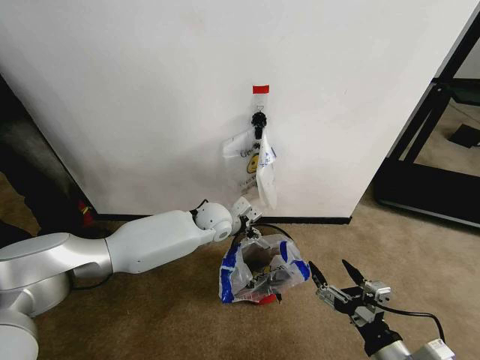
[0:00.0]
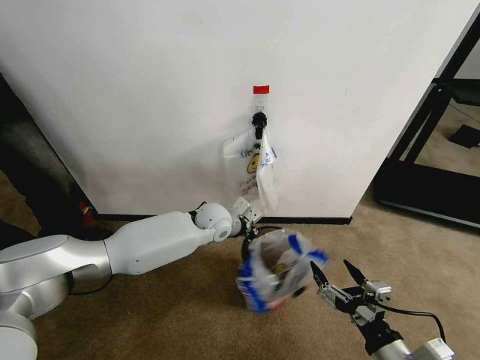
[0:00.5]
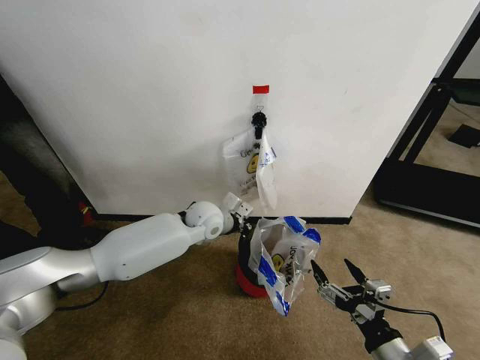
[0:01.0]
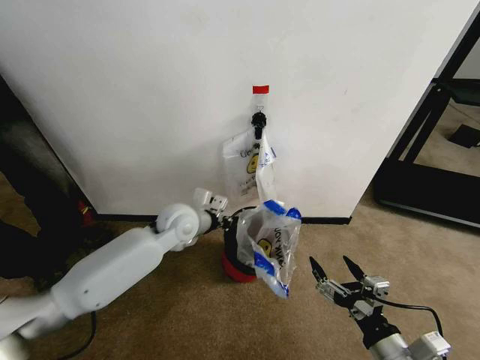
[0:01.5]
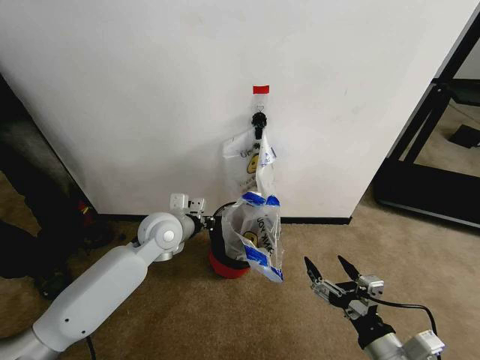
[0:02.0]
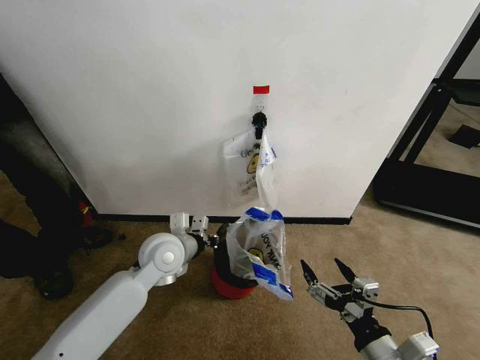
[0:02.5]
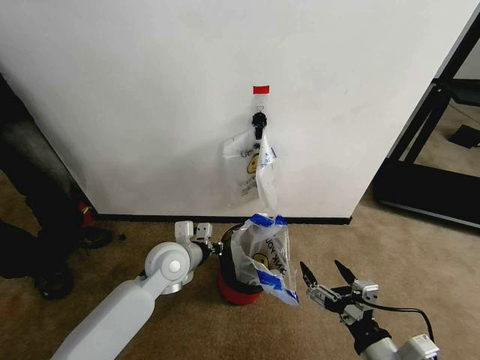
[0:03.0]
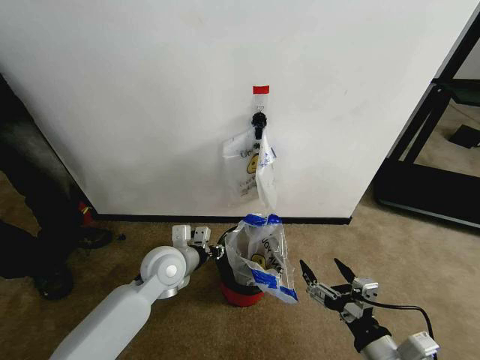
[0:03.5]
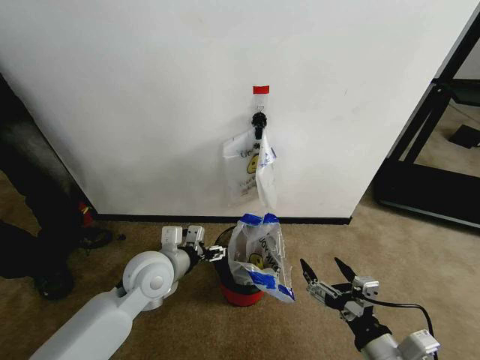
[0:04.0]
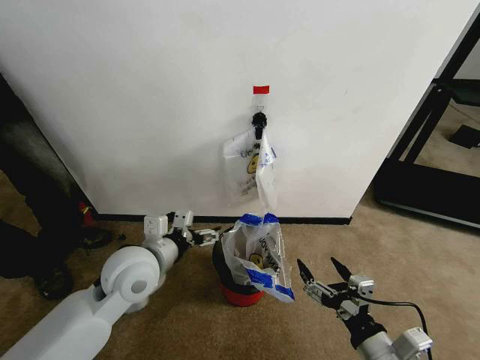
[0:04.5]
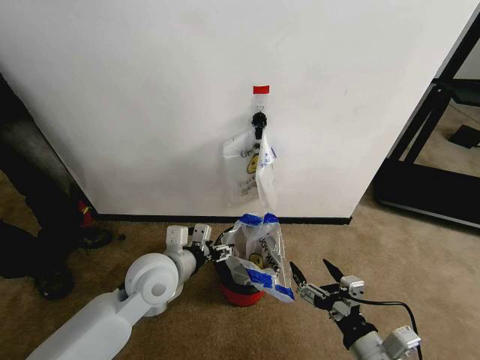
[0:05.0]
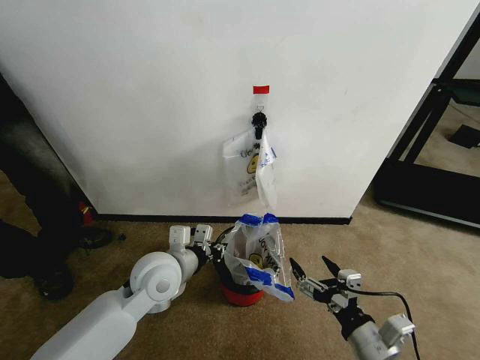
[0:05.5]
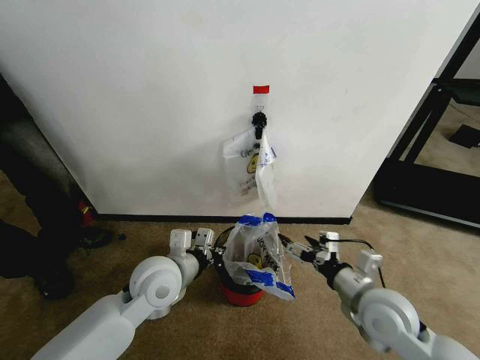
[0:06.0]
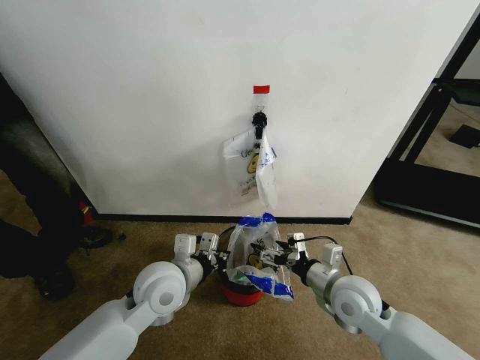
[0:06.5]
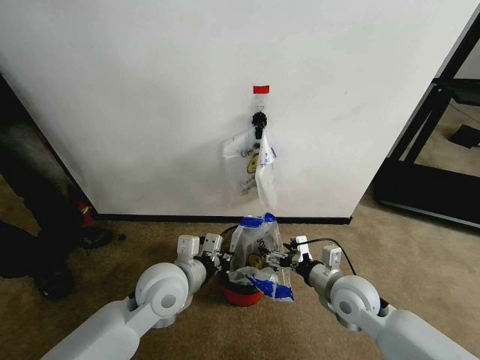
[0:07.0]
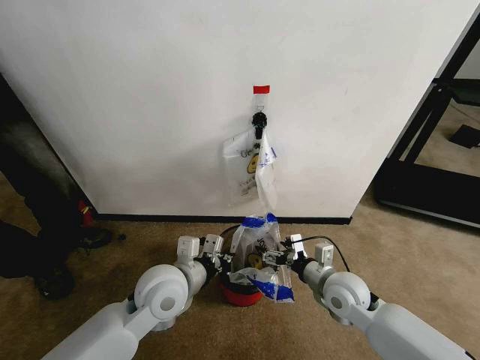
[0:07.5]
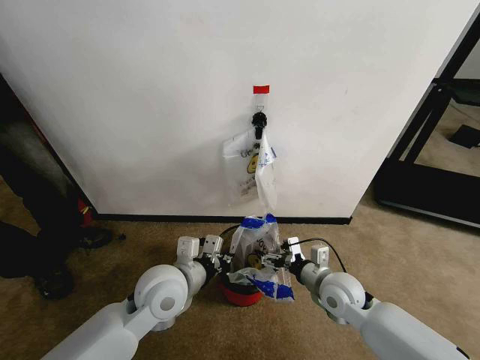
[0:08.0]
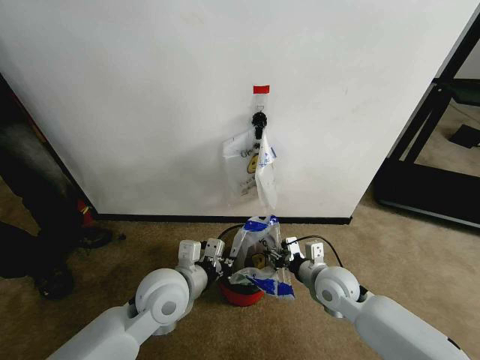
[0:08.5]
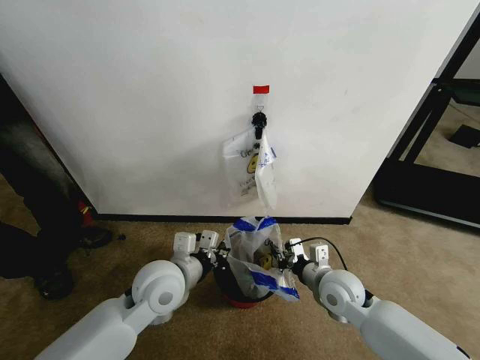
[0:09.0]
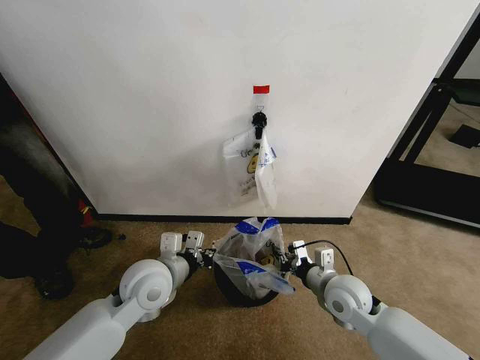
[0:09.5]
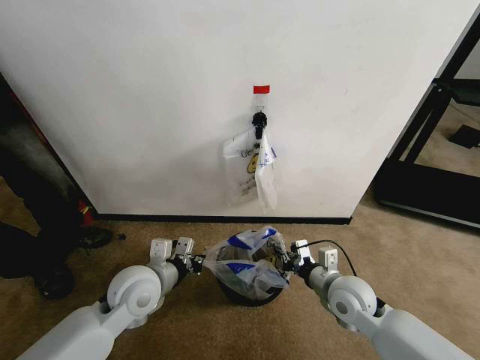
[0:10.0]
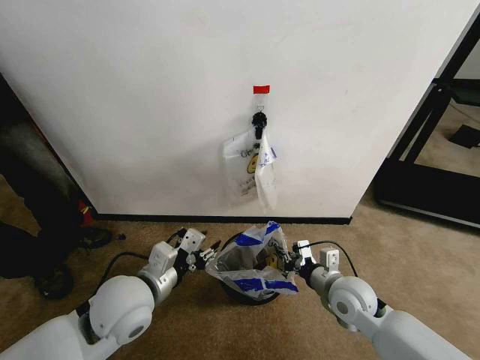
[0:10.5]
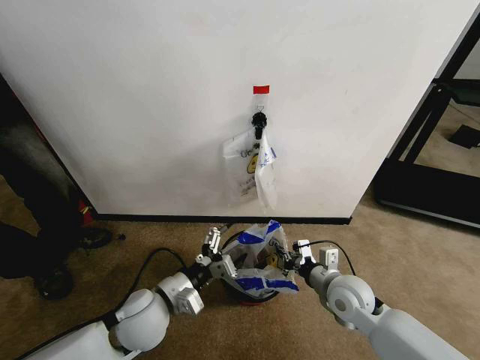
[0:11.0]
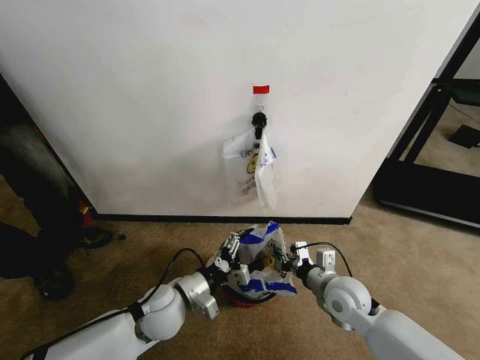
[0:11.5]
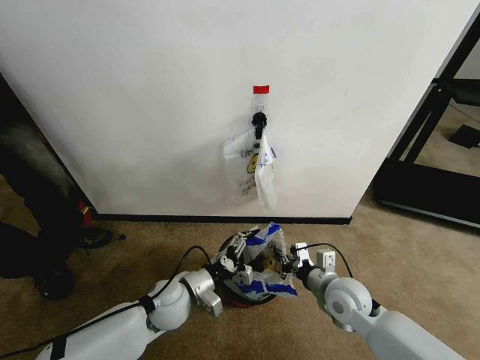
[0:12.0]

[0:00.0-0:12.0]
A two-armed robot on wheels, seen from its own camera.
Task of the whole recording: Pick up the garbage bag from the wall and place it over the trash bin.
0:00.0 to 0:02.0: The left gripper goes approximately 15 cm to the left and backward, and closes.
0:02.0 to 0:04.0: The left gripper heads backward, covering approximately 10 cm, and opens its fingers.
0:04.0 to 0:06.0: The right gripper moves forward, approximately 15 cm, while the left gripper closes its fingers.
0:06.0 to 0:08.0: The right gripper travels downward and forward by some 10 cm.
0:08.0 to 0:10.0: The right gripper closes its fingers. Meanwhile the left gripper is displaced to the left by some 5 cm.
0:10.0 to 0:12.0: The left gripper heads downward, covering roughly 10 cm, and opens.

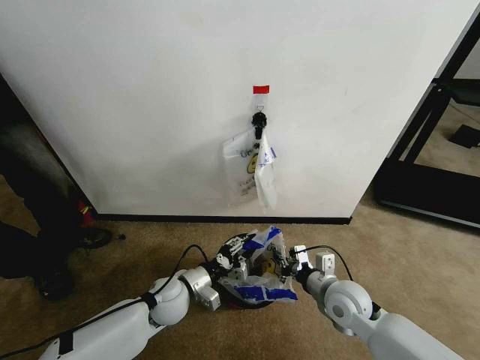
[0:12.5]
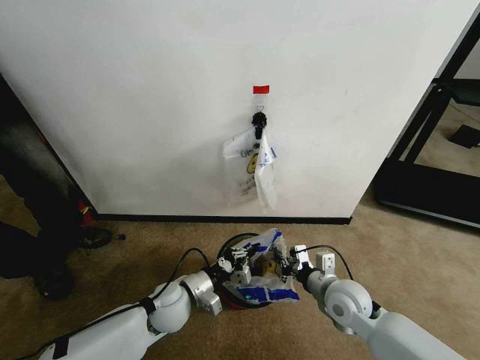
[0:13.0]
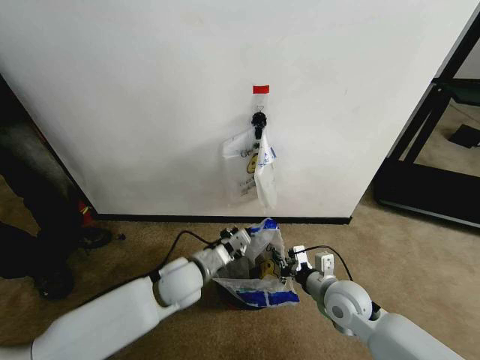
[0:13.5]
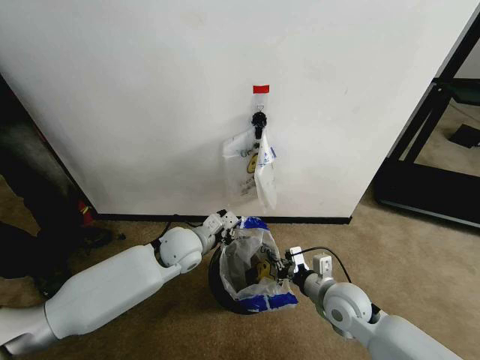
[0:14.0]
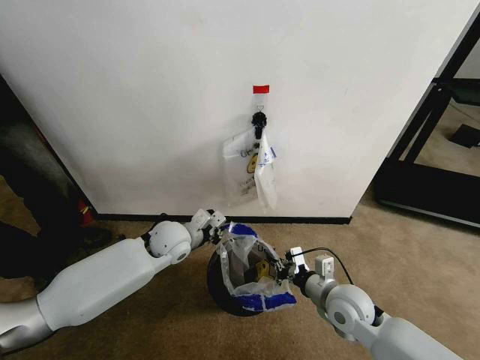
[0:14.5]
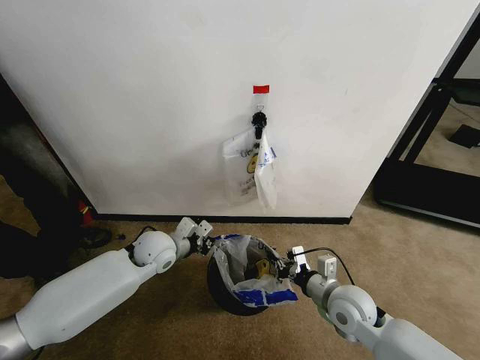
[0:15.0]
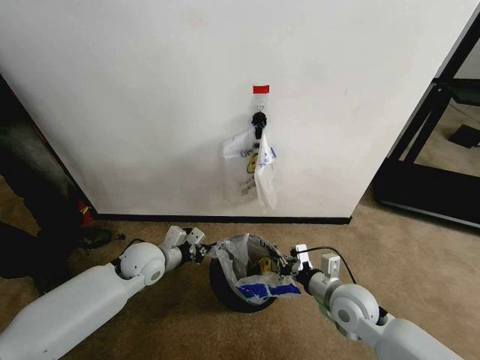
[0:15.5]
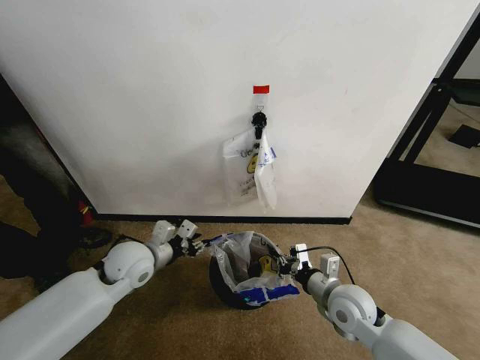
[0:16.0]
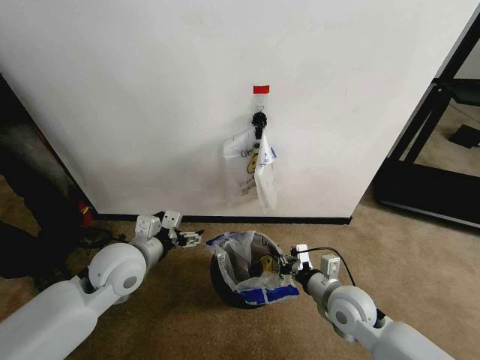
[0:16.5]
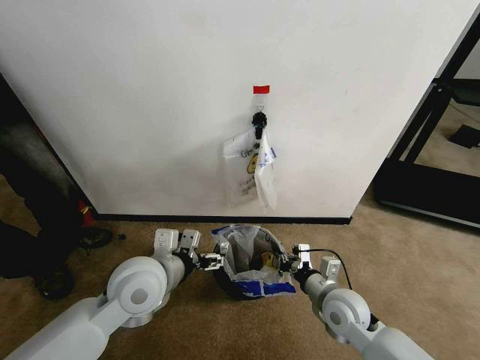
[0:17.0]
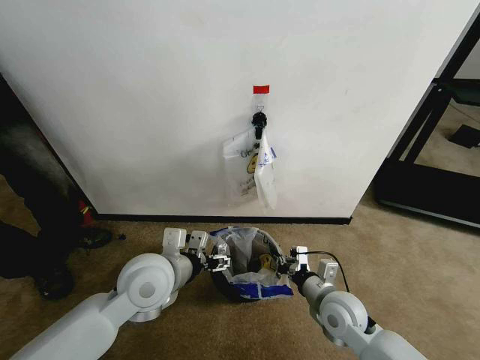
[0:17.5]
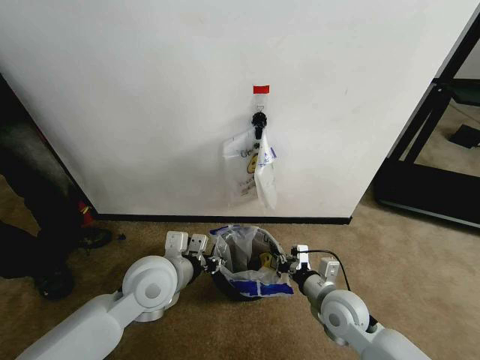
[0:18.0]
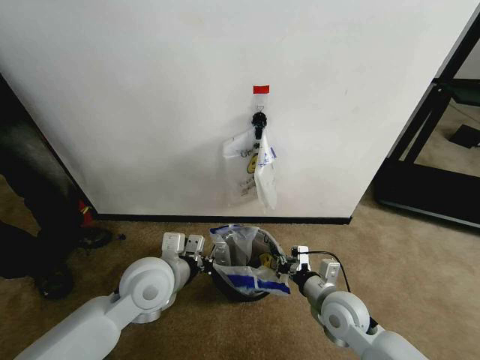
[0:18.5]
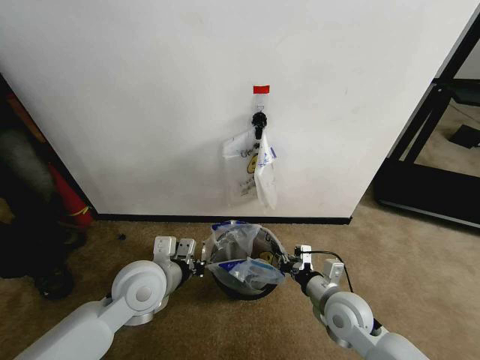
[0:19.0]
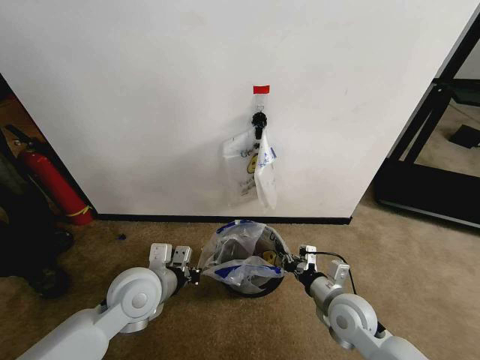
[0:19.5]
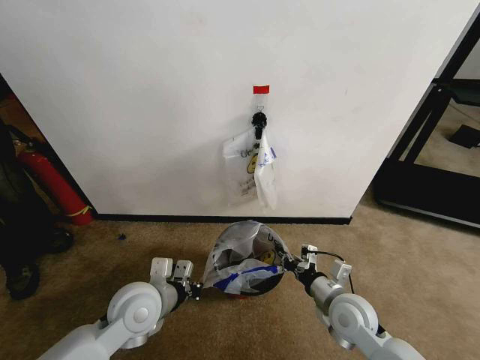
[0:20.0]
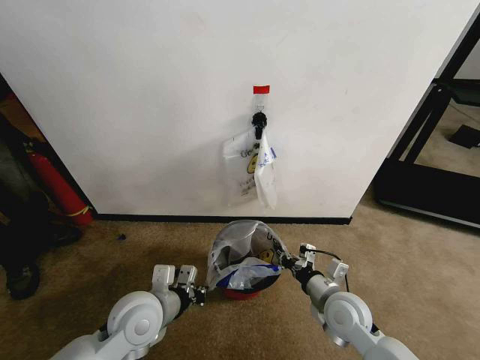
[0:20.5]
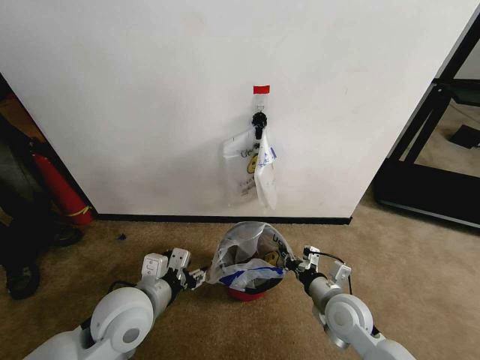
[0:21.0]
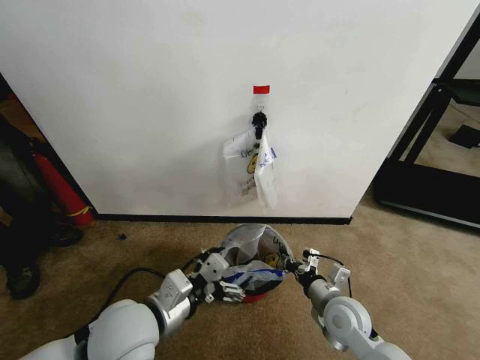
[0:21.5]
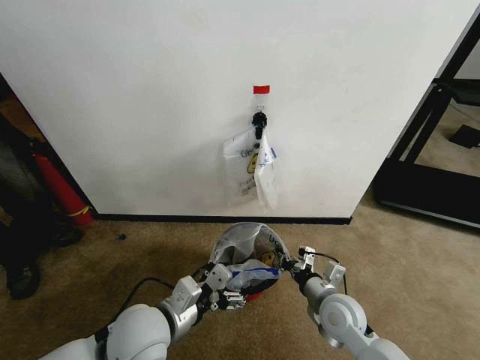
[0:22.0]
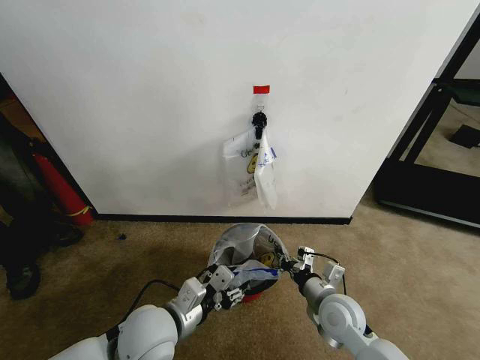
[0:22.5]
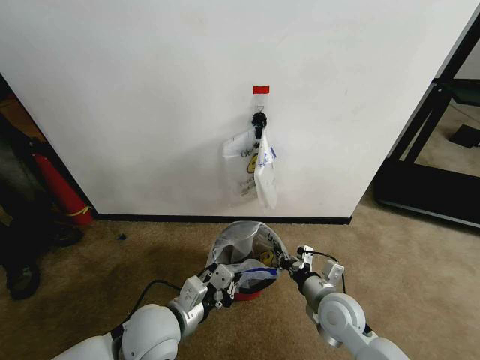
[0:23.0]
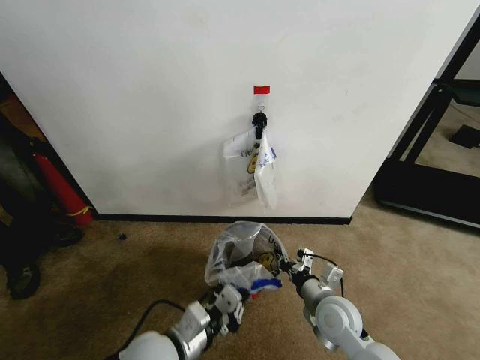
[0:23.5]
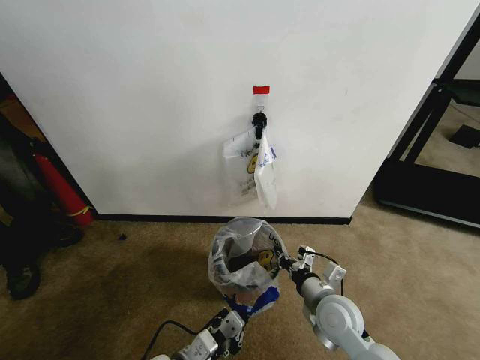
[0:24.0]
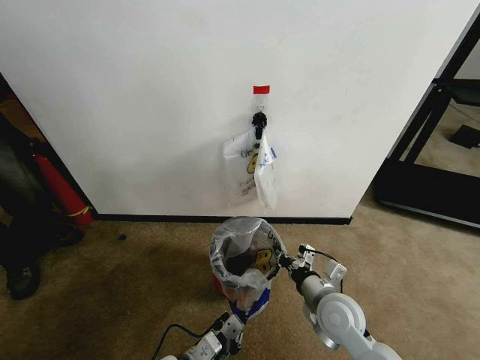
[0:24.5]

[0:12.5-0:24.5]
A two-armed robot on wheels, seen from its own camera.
Task of the whole recording: Pick up the garbage bag from the wall and place it over the trash bin.
0:12.5 to 0:14.5: The left gripper moves forward and upward, roughly 15 cm, and closes.
0:14.5 to 0:16.5: The left gripper shifts some 15 cm backward, to the left and upward, and opens up.
0:16.5 to 0:18.5: The left gripper moves to the right, about 5 cm, and closes.
0:18.5 to 0:20.5: The left gripper moves downward, about 5 cm.
0:20.5 to 0:22.5: The left gripper opens.
0:22.5 to 0:24.5: The left gripper goes some 15 cm downward and backward, and closes.

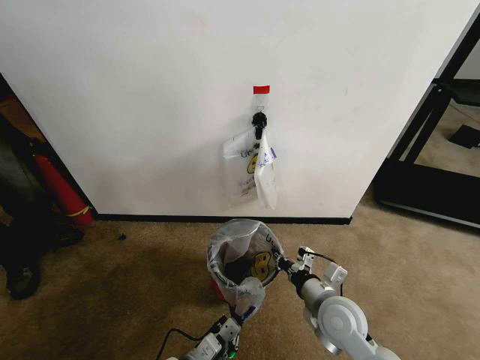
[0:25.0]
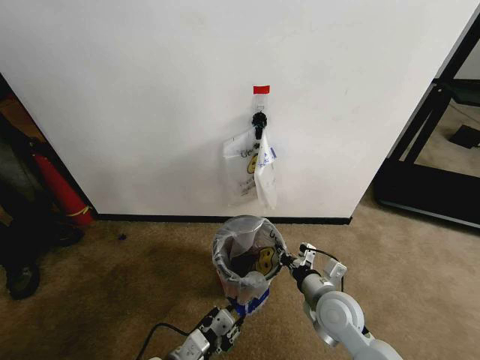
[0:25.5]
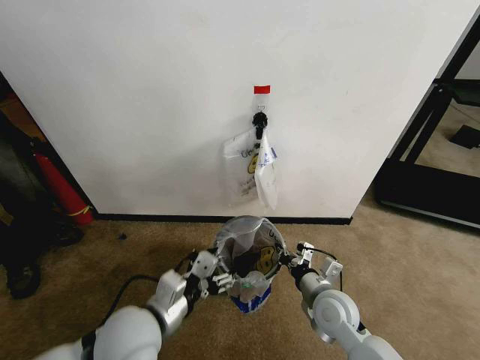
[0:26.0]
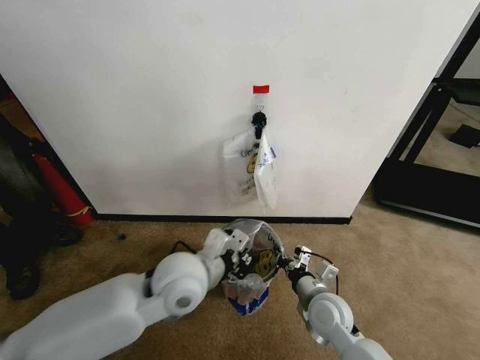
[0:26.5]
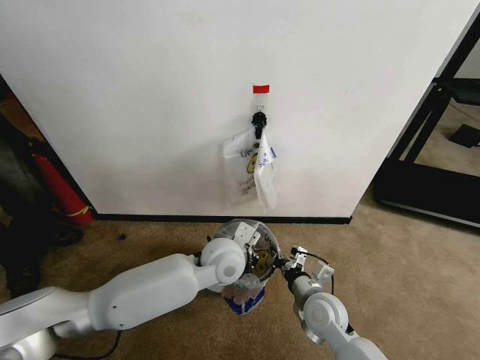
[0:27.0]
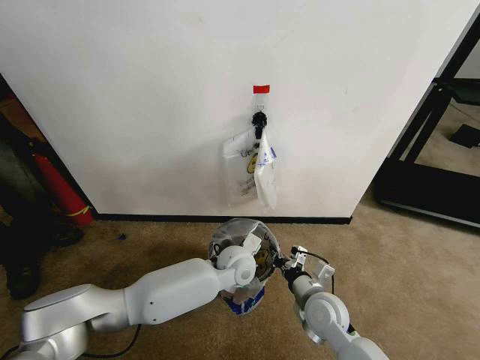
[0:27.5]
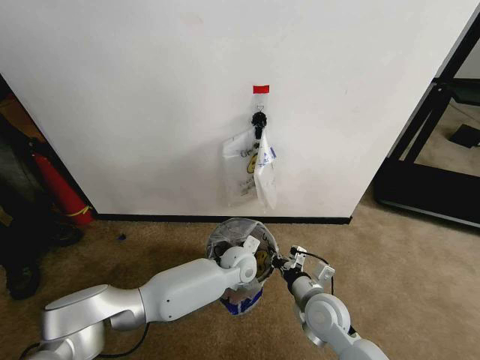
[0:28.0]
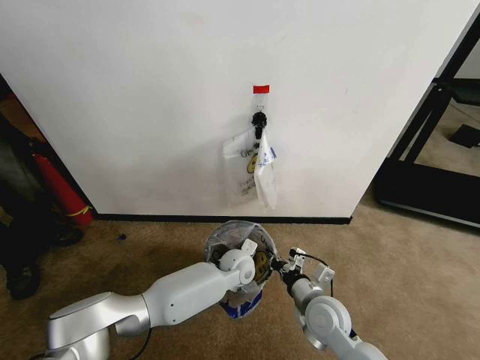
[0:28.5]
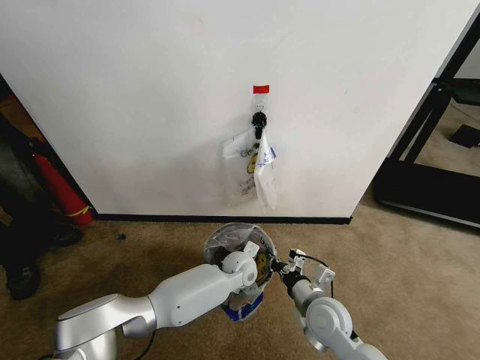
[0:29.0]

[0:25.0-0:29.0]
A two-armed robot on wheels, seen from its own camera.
Task of the whole recording: Pick up the garbage bag from the wall and place it over the trash bin.
0:25.0 to 0:27.0: The left gripper shifts roughly 30 cm forward, upward and to the right, and opens, then closes once more. Meanwhile the right gripper ends up some 5 cm from where it was.
0:27.0 to 0:29.0: The left gripper shifts approximately 15 cm downward.
